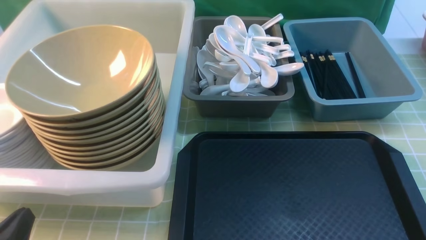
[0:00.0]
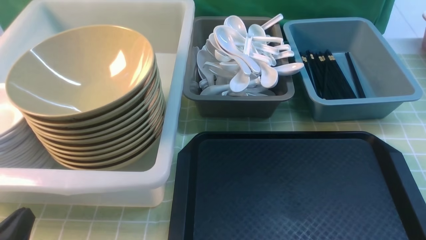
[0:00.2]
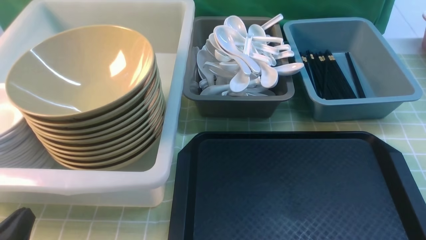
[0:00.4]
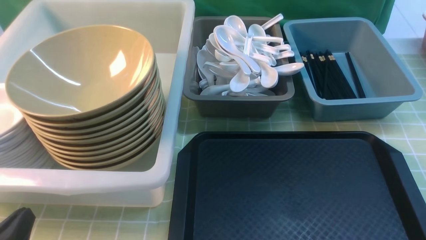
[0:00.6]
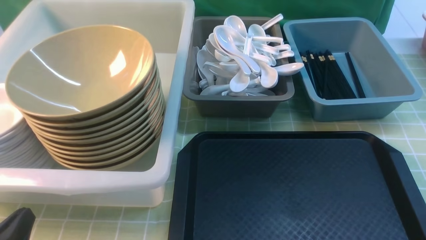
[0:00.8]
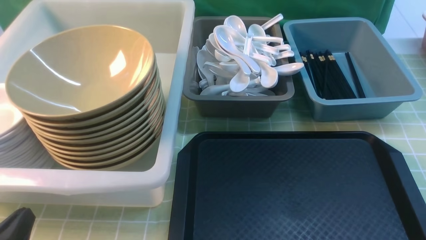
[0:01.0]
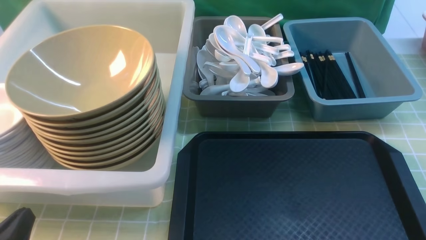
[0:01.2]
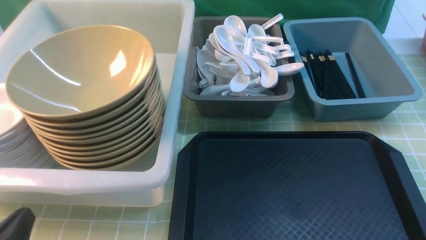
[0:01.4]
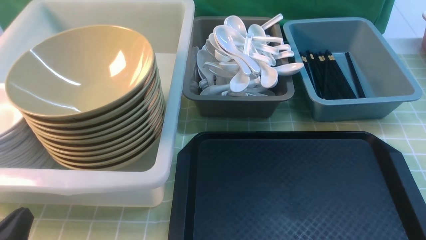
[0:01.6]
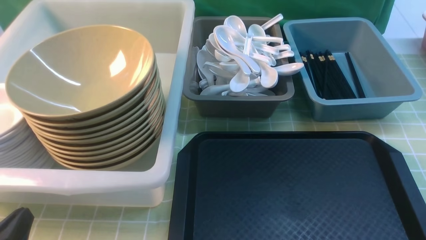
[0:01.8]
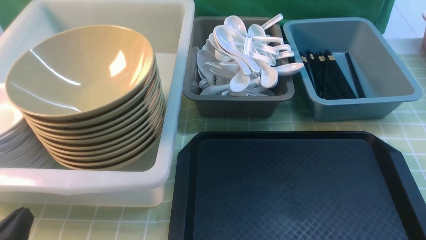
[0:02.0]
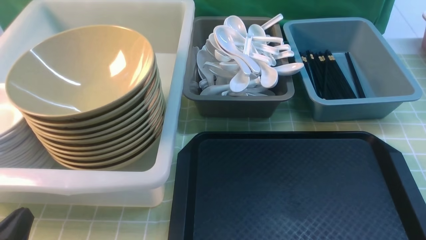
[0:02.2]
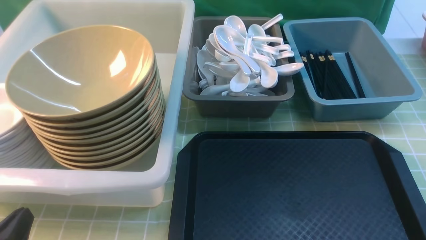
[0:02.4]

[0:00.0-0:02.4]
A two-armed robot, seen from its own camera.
Task of the whole recording: on green table put chopsticks spoon bowls plates into blue grey white boxes.
0:01.2 to 0:02.4: Both grippers stay about where they are.
